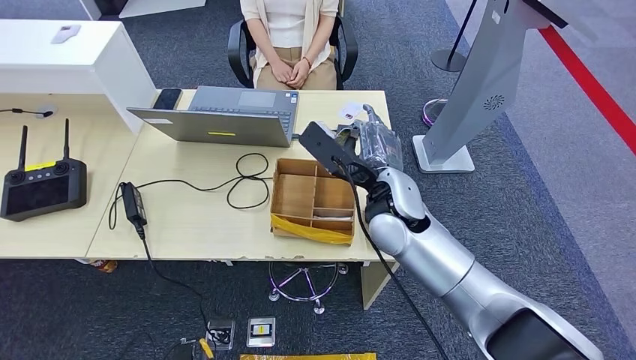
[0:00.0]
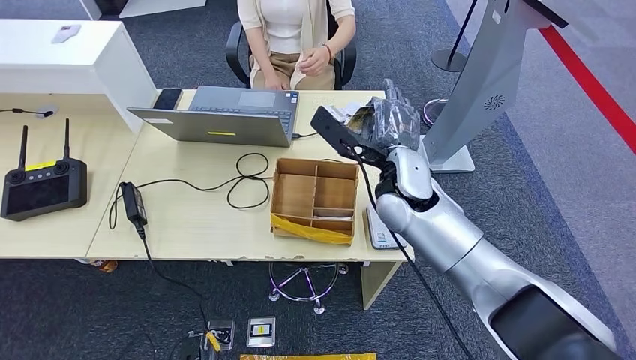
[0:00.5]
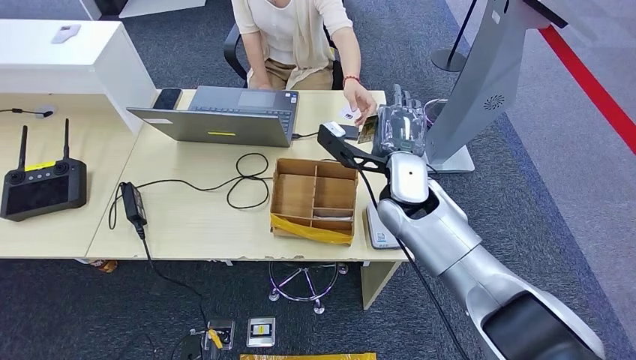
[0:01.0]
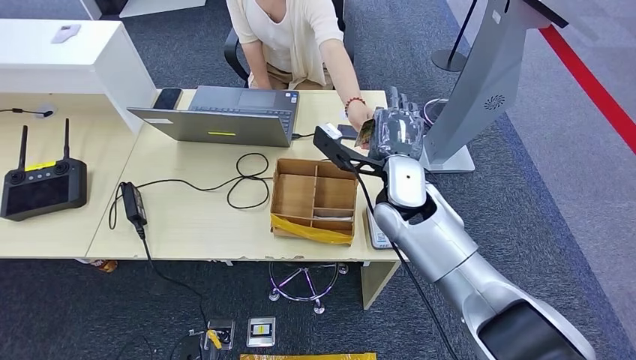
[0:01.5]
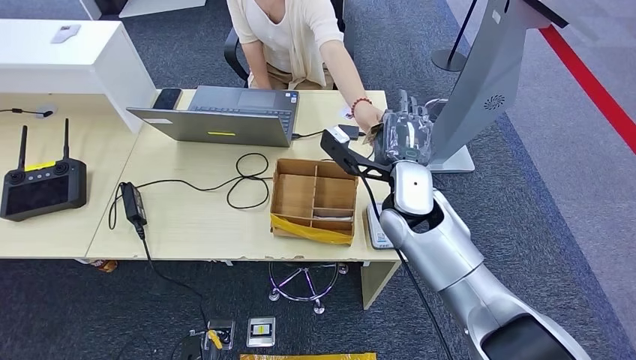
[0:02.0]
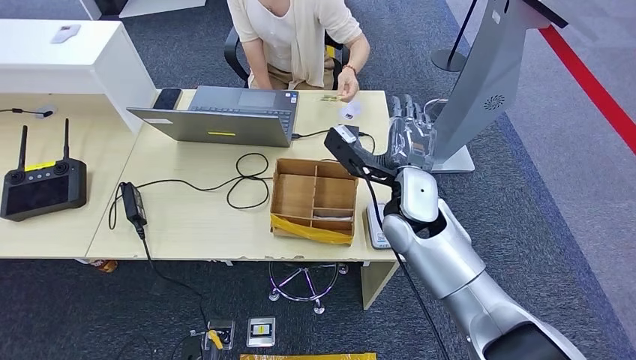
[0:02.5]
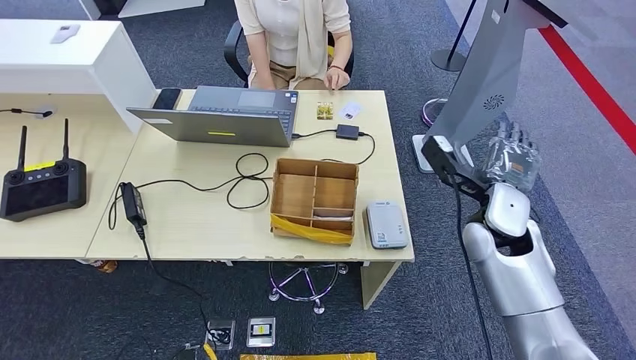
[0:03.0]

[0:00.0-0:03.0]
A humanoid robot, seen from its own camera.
Step, 0:00.5 to 0:03.0: Hand the room key to the person.
0:01.5 to 0:03.0: The right hand heads to the right, covering roughly 15 cm.
